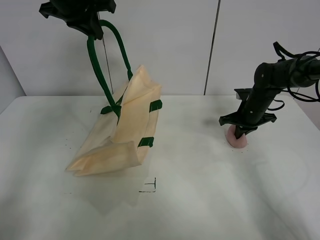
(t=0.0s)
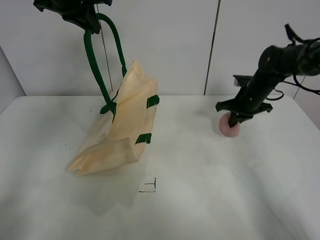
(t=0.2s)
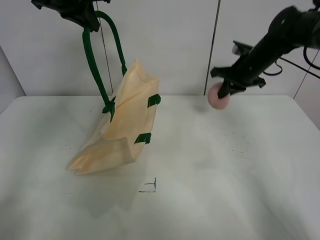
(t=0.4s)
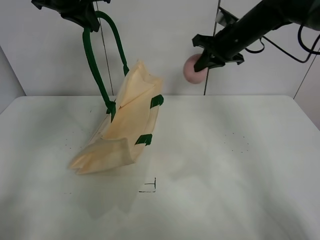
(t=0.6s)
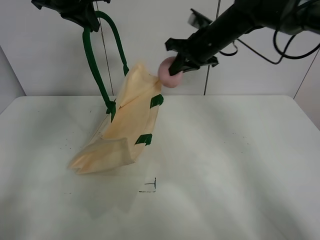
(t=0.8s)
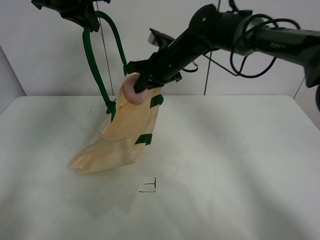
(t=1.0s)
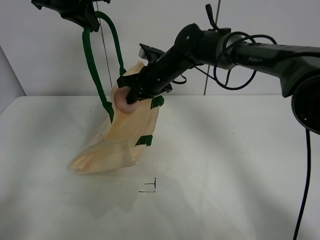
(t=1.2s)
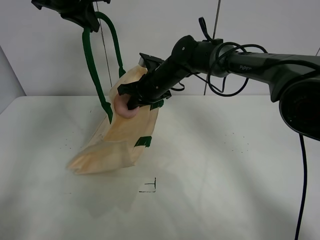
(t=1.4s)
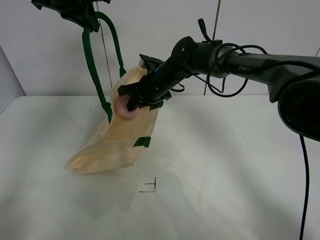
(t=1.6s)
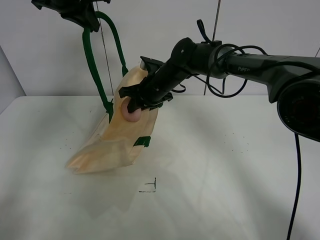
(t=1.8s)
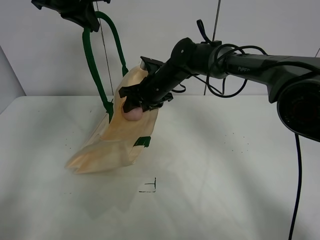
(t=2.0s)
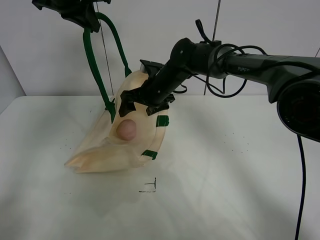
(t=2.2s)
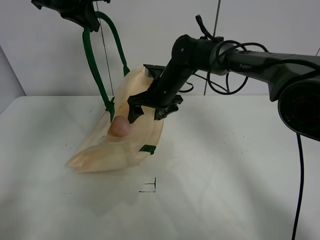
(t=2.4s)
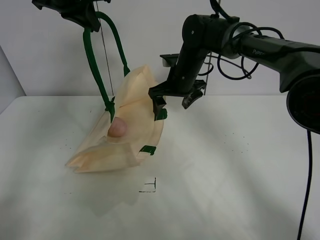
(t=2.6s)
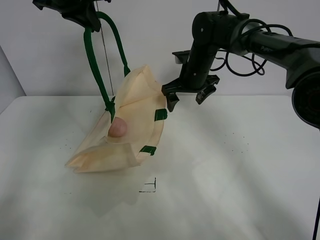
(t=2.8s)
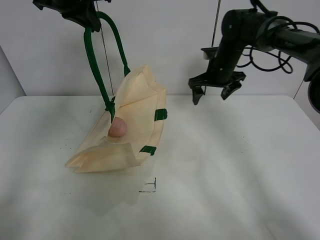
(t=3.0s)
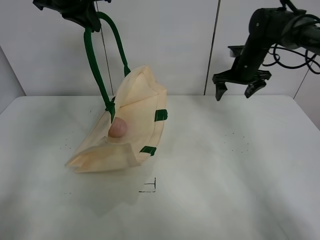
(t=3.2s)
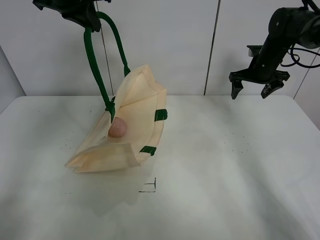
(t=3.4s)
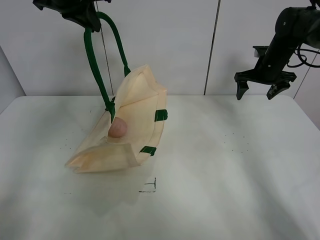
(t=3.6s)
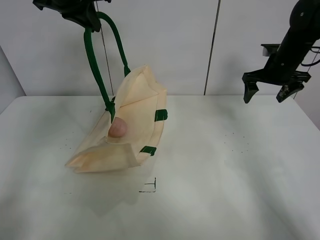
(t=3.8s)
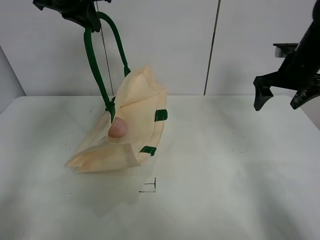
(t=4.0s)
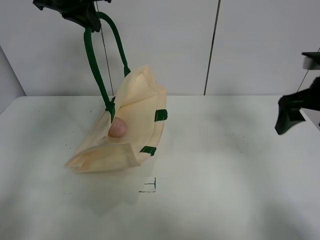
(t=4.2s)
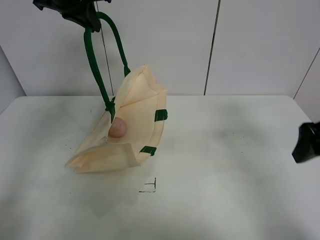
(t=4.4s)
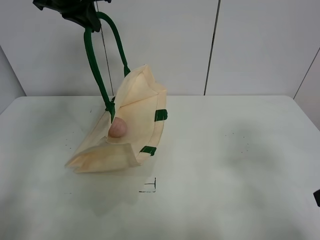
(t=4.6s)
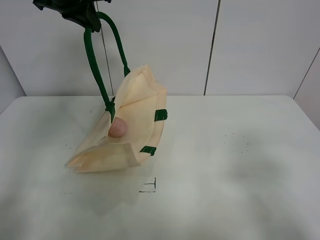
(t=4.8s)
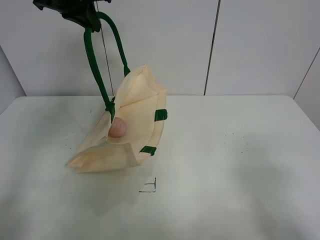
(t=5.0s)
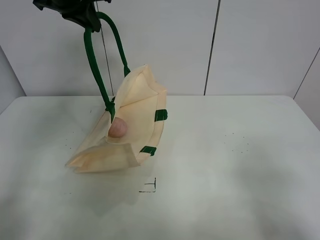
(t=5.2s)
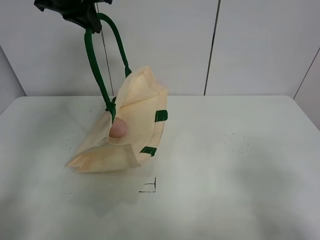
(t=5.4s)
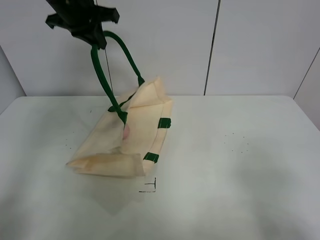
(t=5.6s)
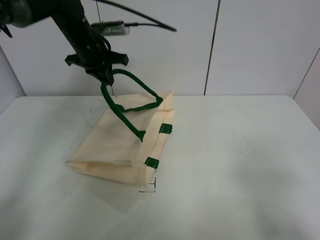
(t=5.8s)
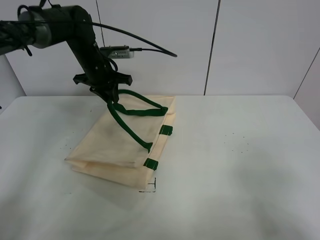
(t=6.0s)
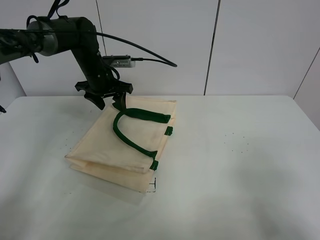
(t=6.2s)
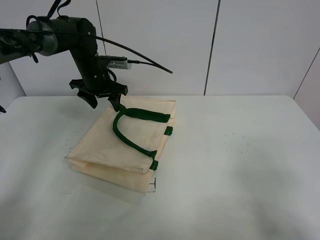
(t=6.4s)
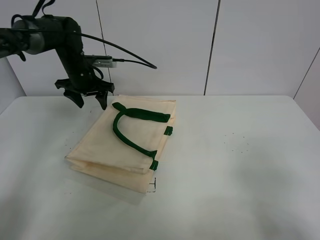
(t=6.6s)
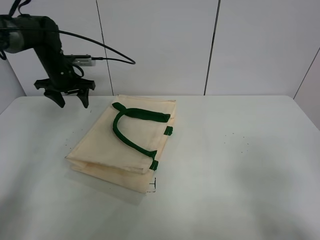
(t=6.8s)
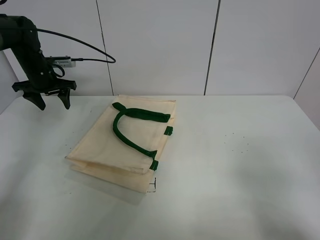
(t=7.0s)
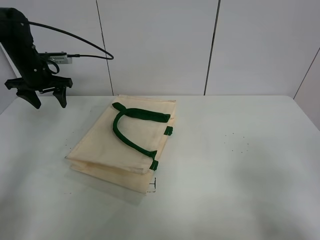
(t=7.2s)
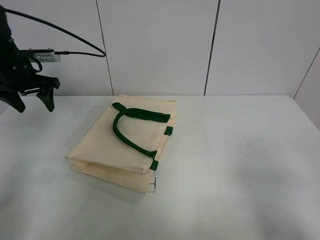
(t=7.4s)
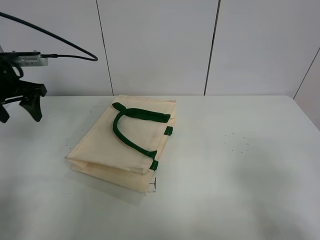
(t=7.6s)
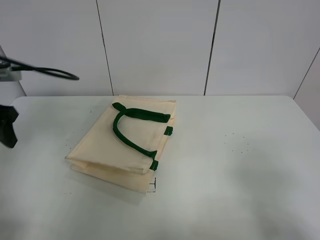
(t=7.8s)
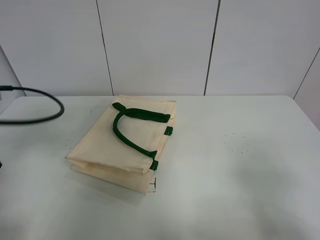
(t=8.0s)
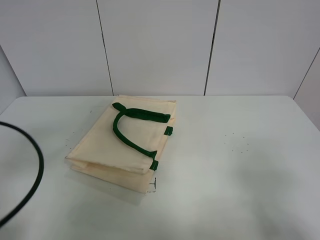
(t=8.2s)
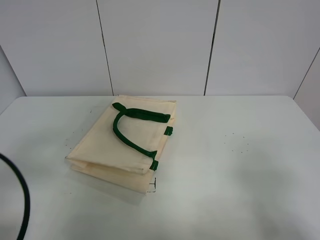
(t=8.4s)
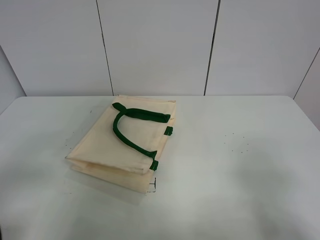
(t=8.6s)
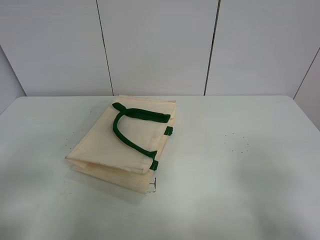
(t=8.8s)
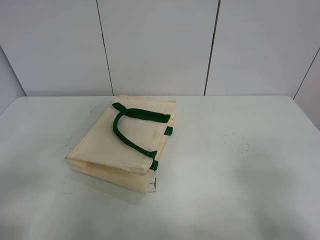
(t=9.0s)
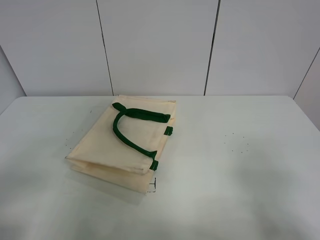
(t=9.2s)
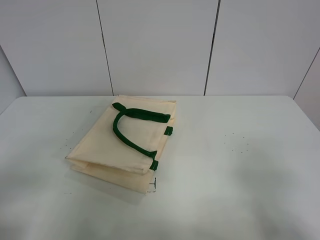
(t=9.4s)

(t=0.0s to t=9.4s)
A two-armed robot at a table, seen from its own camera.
Task of the whole recording: open the white linen bag and put the peach in the bag.
Step, t=0.2s - t=2.4s: Place the peach in the handbag with right gripper.
Step, t=2.6s - t=6.2s: Put down the handbag with left gripper.
t=0.0s - t=1.6s: The right gripper moves to the left, approximately 25 cm.
t=1.6s - t=3.2s: The right gripper heads to the right, covering roughly 25 cm, and opens its fingers.
t=3.2s - t=4.8s: The right gripper is displaced backward by about 40 cm.
t=4.8s - t=6.2s: The left gripper goes some 20 cm downward, and opens its fingers.
t=6.2s - t=7.8s: The left gripper is displaced backward and to the left by some 30 cm.
t=7.8s - t=9.4s: The left gripper shifts roughly 20 cm backward.
